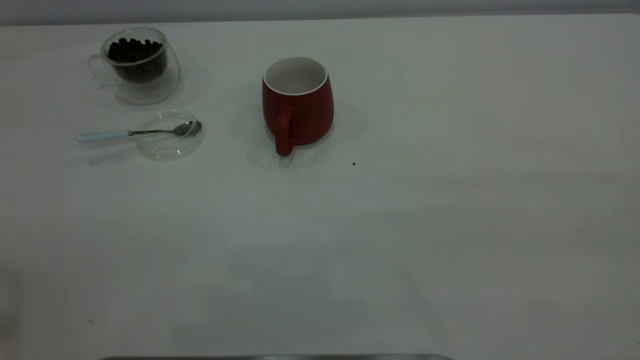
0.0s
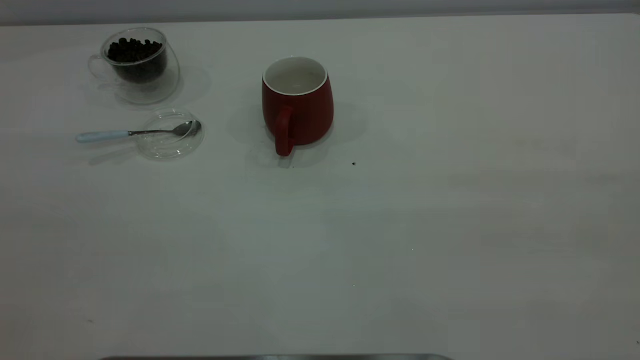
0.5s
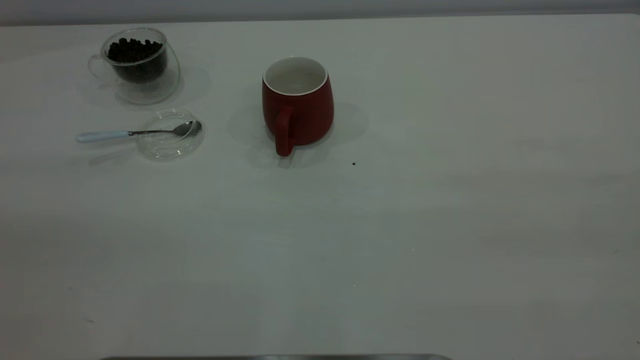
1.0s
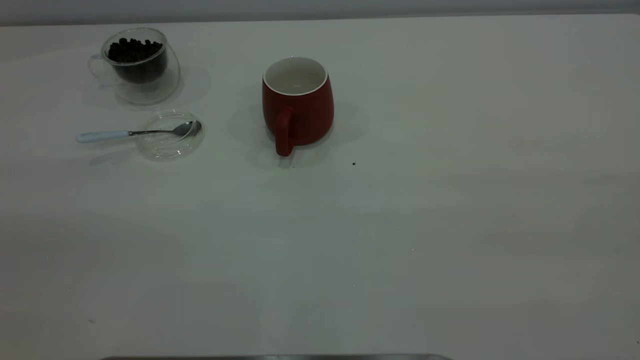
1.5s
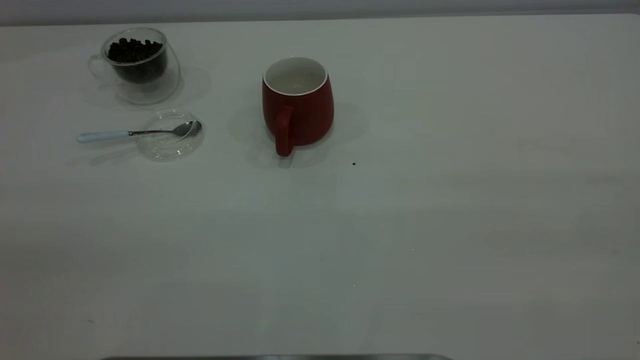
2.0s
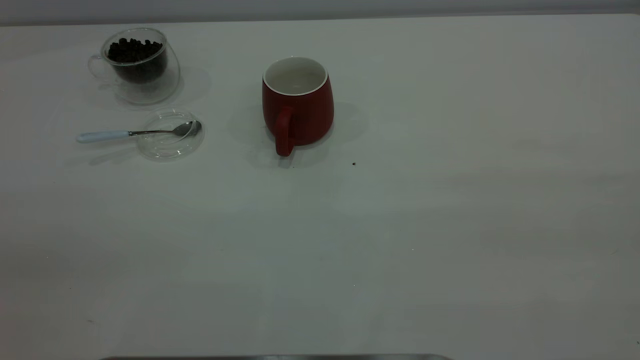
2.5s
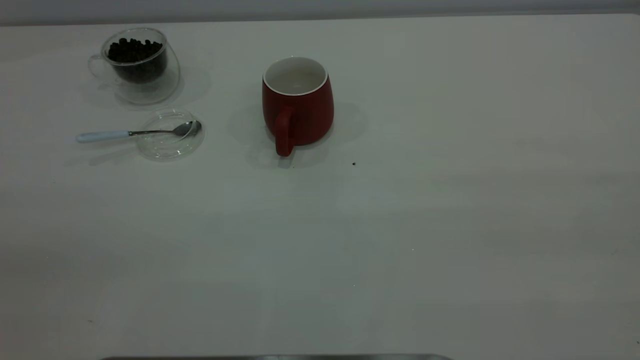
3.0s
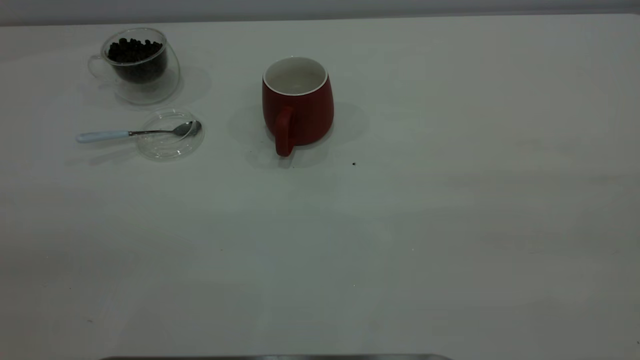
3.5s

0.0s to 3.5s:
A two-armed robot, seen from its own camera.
Task of the whole recording: the right gripper place the red cup in the center of the table, the left gripper take the blue spoon from the cup lid and scoop out the coffee beans from the coffee cup and put them into the red cup, the left gripper put the spoon back into the cup lid.
2.0s to 3.5s: Both grippers stay about where they are.
